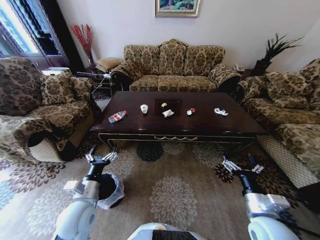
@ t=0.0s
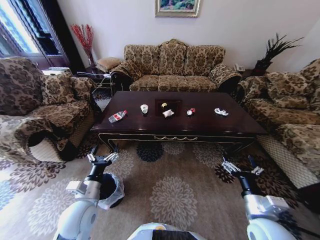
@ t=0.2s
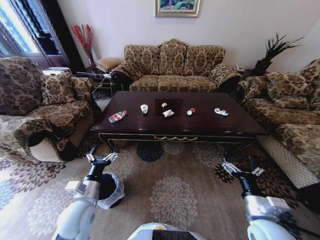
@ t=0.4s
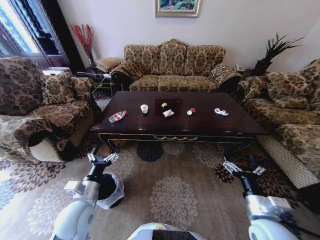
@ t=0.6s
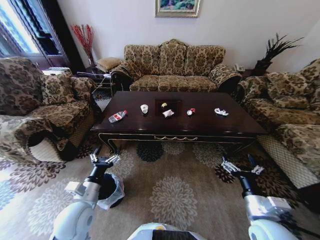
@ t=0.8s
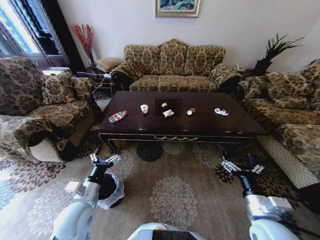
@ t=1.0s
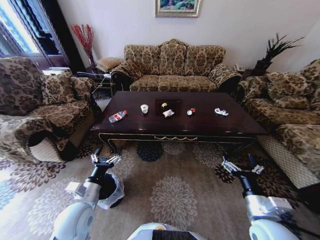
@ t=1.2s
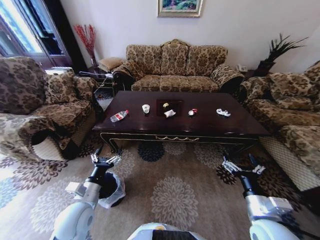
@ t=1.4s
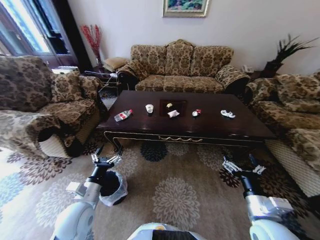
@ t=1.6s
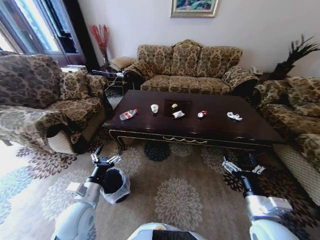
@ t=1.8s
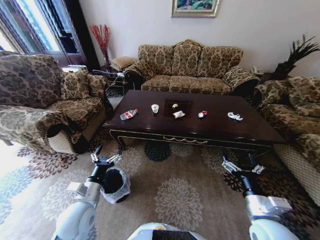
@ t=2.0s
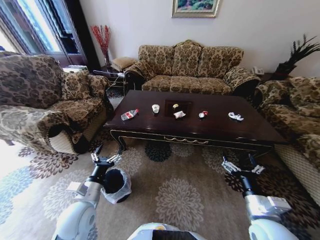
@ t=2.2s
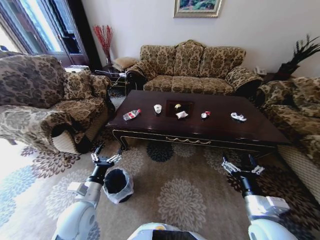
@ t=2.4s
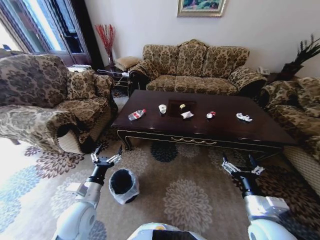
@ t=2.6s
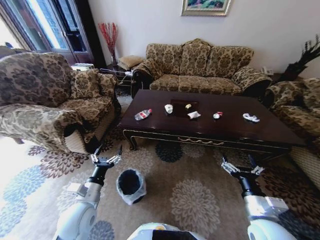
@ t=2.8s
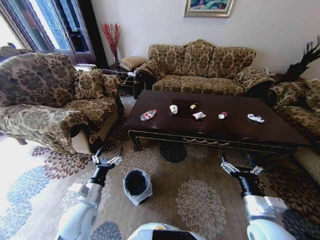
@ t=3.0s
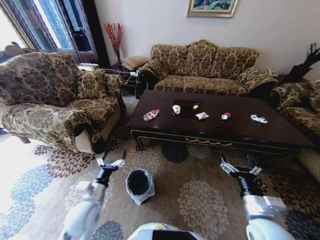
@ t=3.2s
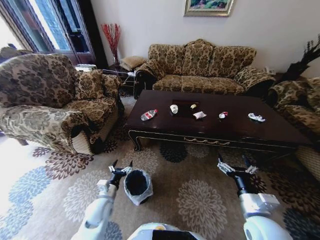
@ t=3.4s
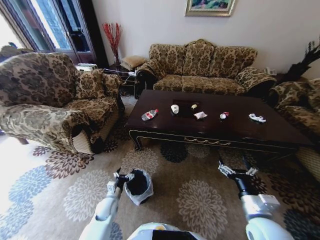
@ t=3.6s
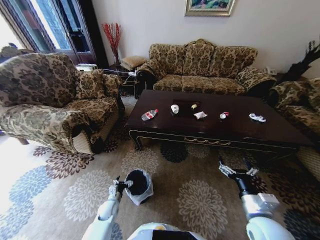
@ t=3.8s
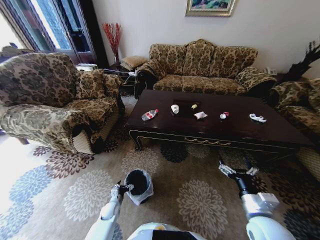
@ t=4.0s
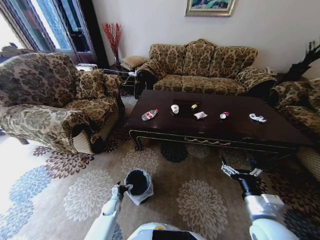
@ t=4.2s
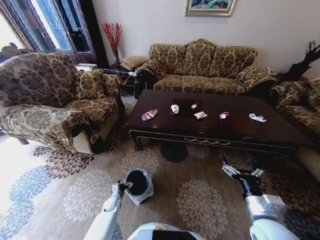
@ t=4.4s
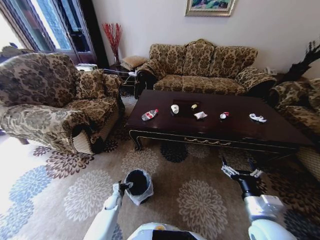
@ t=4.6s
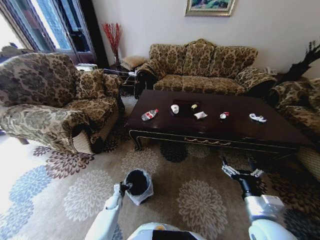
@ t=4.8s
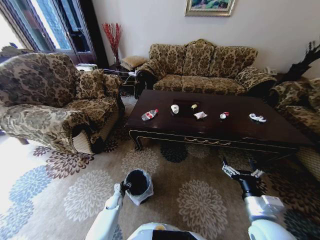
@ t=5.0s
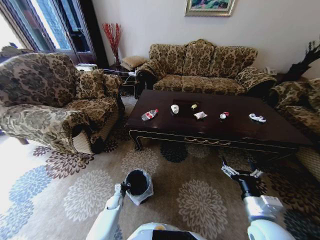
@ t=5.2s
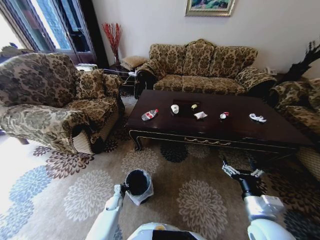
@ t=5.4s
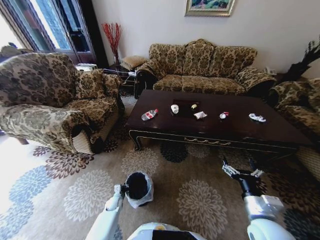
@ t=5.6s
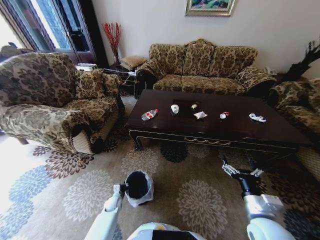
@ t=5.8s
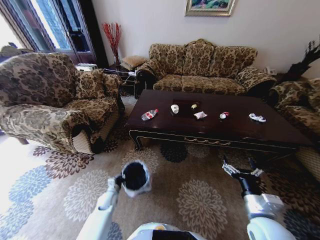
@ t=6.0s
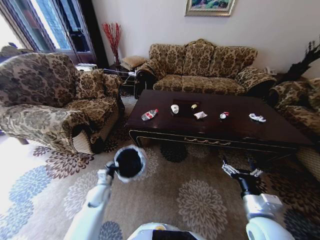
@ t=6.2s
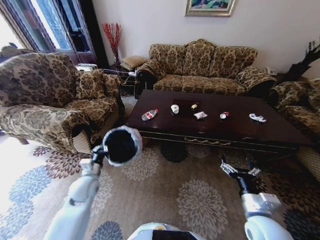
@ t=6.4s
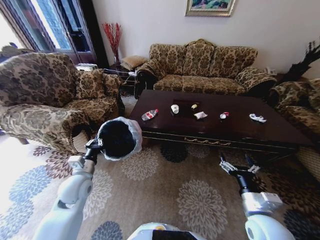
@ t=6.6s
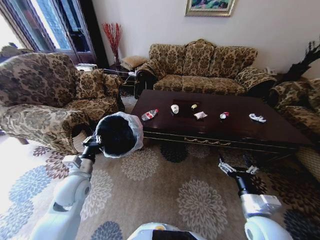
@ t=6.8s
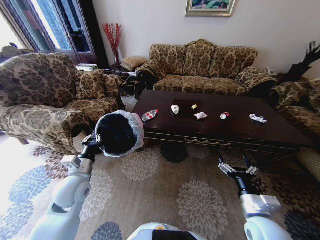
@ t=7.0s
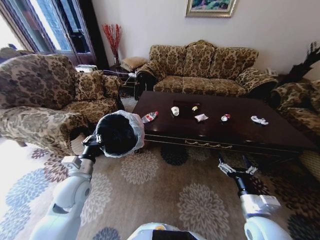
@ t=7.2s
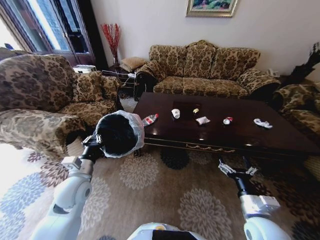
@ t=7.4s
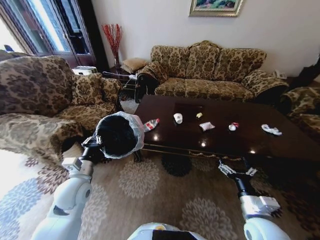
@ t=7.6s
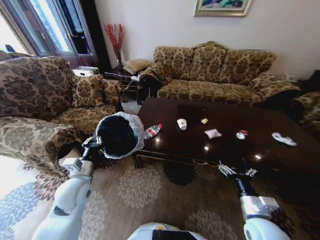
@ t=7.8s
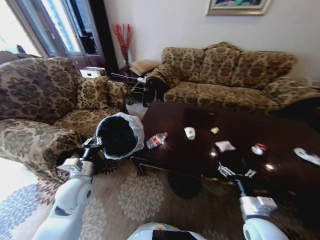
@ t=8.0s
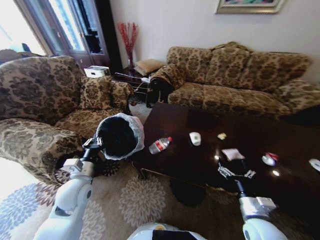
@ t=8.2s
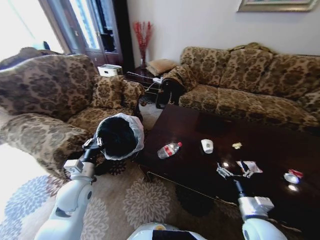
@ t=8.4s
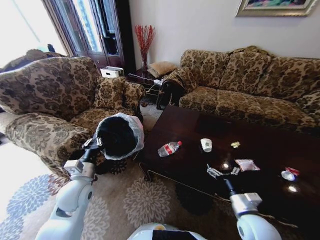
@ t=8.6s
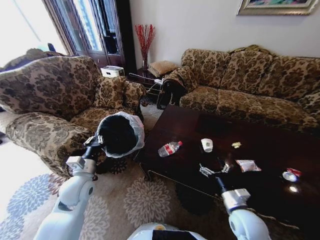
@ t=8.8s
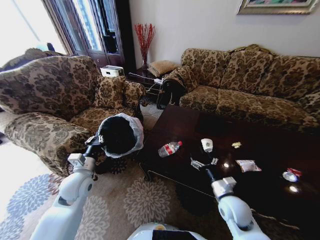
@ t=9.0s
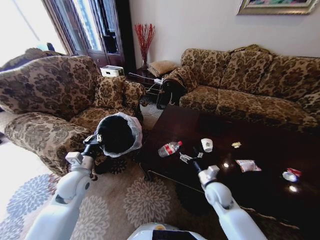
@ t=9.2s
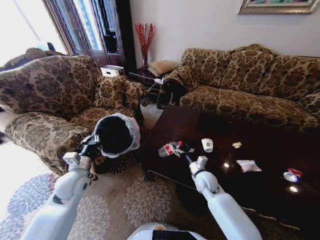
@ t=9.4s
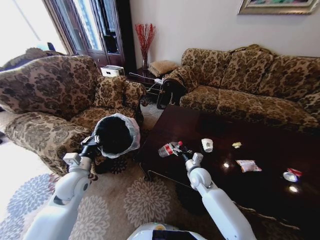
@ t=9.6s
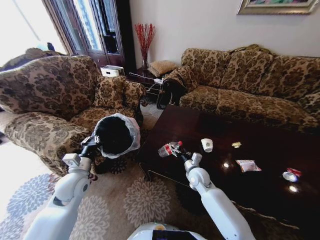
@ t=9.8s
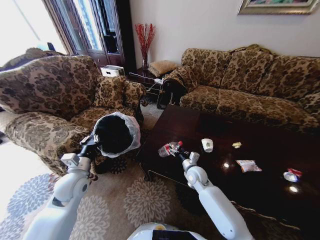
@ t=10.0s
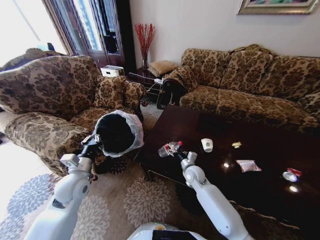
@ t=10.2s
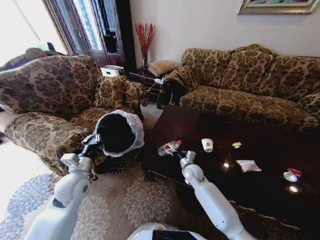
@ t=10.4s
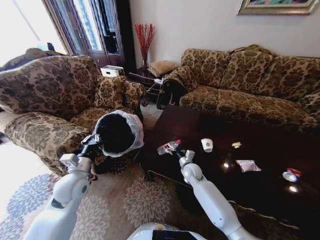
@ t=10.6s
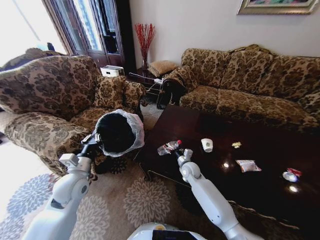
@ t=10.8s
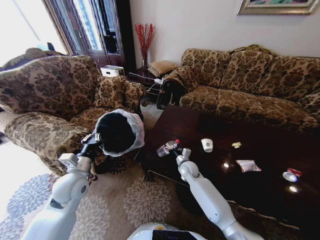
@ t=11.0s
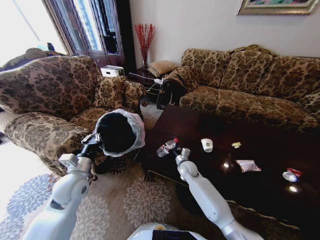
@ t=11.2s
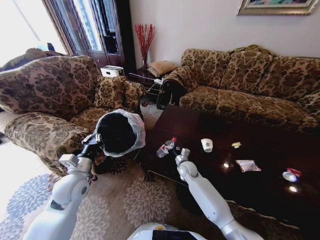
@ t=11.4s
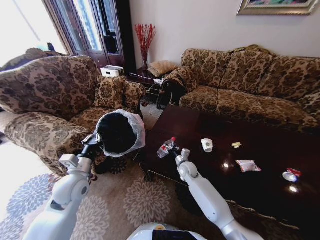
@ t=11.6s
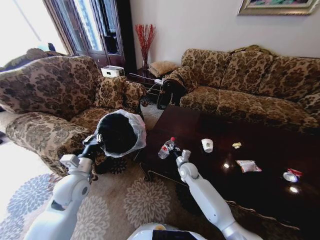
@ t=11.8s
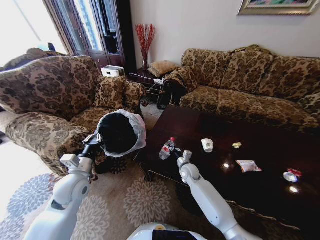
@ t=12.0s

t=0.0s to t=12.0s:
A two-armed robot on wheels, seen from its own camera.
Task of the whole recording: Move to the front of the table and place the trash on the table into the trash bin.
t=3.0s to t=4.4s: The left gripper travels downward by approximately 30 cm.
t=4.4s to t=6.0s: The left gripper shifts approximately 5 cm upward, and closes its fingers.
t=6.0s to t=7.6s: The left gripper is displaced upward by about 30 cm.
t=7.6s to t=9.0s: The right gripper travels forward by approximately 5 cm.
t=9.0s to t=10.4s: The right gripper moves forward and to the left, roughly 20 cm.
t=10.4s to t=12.0s: The right gripper closes up.

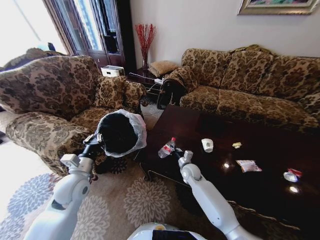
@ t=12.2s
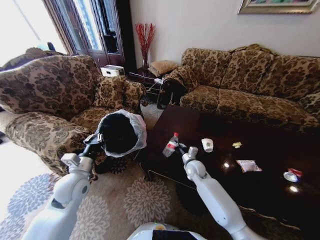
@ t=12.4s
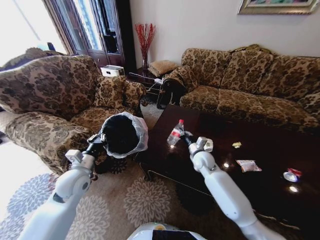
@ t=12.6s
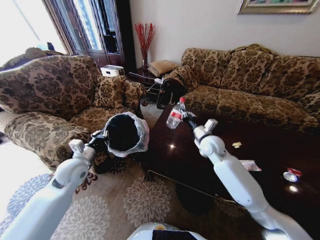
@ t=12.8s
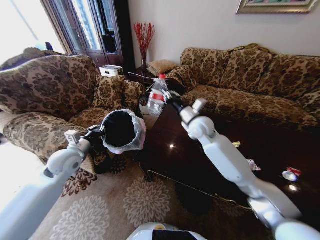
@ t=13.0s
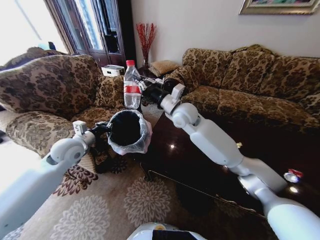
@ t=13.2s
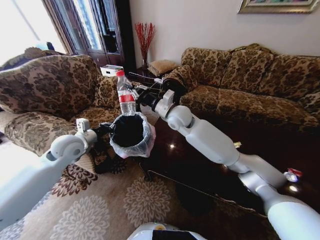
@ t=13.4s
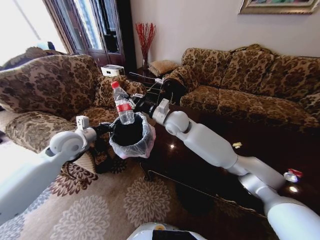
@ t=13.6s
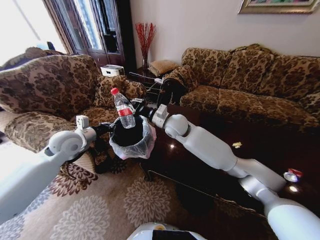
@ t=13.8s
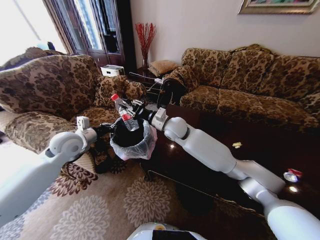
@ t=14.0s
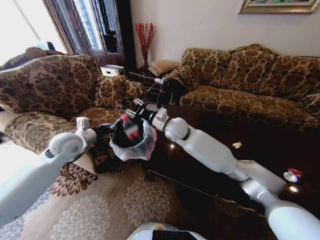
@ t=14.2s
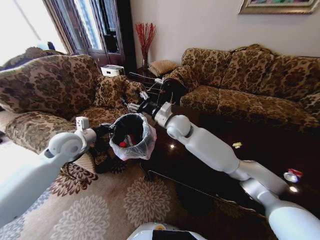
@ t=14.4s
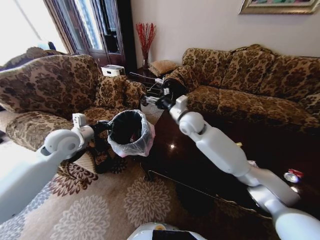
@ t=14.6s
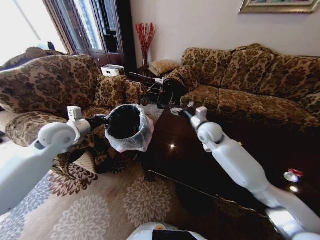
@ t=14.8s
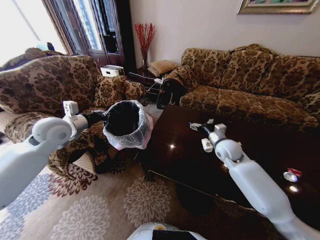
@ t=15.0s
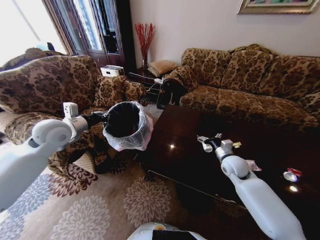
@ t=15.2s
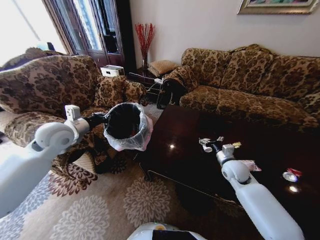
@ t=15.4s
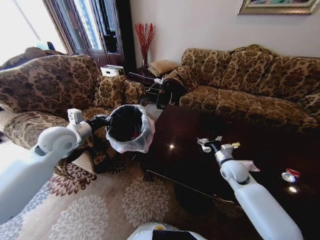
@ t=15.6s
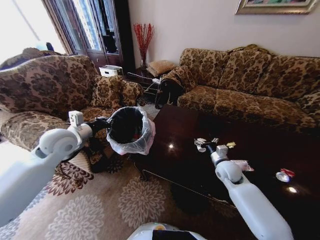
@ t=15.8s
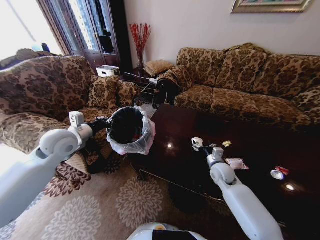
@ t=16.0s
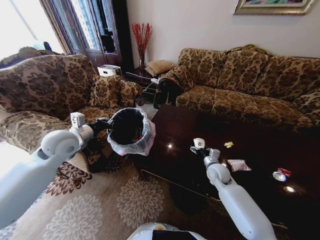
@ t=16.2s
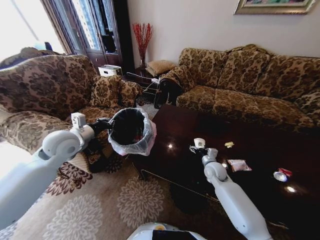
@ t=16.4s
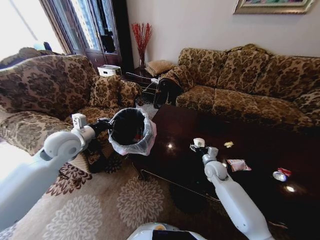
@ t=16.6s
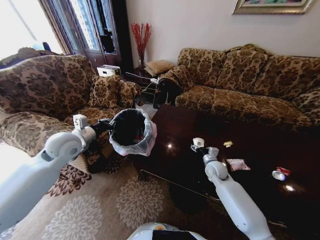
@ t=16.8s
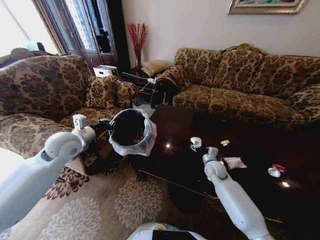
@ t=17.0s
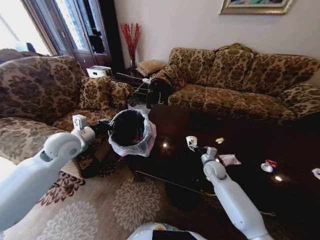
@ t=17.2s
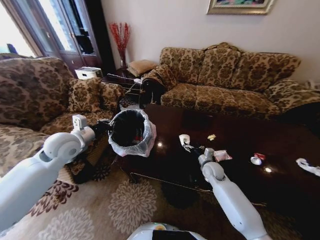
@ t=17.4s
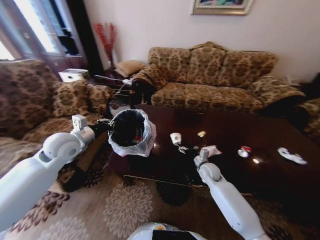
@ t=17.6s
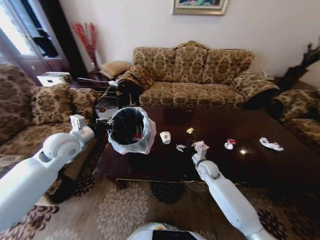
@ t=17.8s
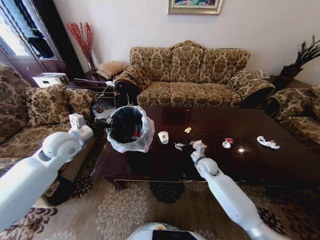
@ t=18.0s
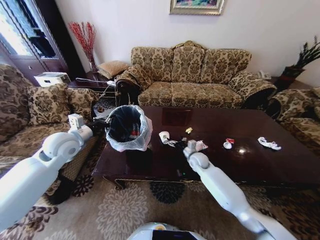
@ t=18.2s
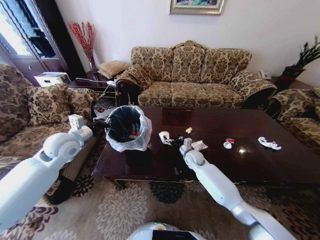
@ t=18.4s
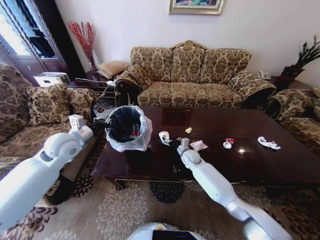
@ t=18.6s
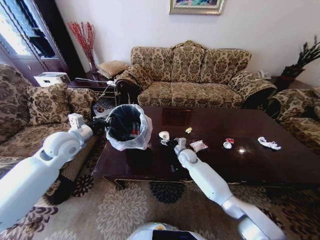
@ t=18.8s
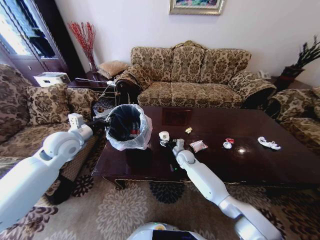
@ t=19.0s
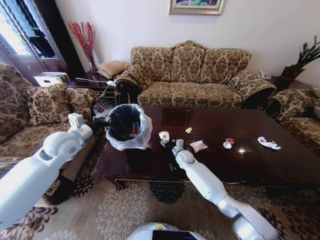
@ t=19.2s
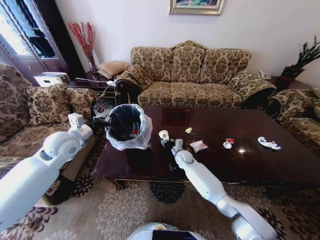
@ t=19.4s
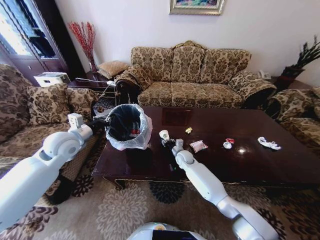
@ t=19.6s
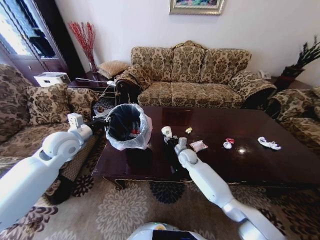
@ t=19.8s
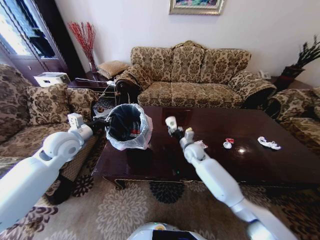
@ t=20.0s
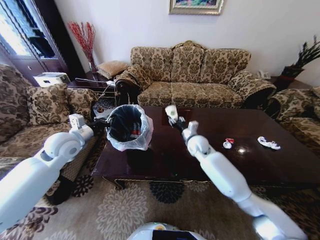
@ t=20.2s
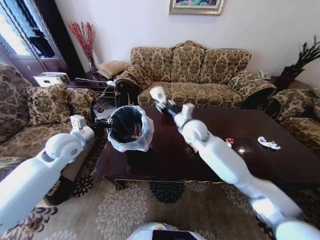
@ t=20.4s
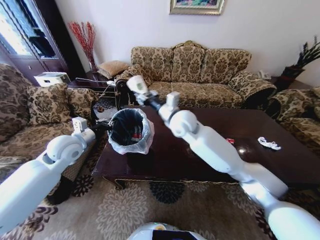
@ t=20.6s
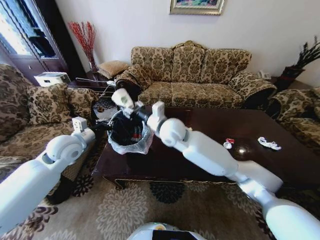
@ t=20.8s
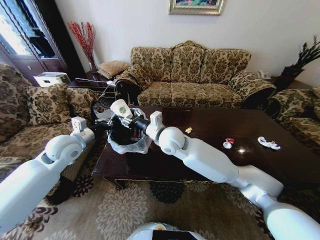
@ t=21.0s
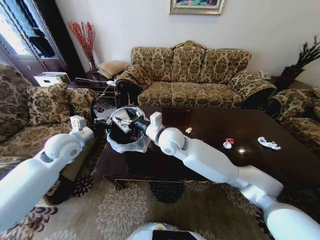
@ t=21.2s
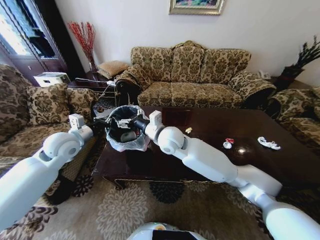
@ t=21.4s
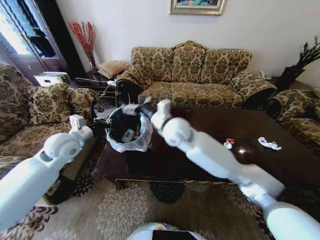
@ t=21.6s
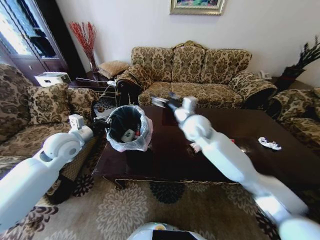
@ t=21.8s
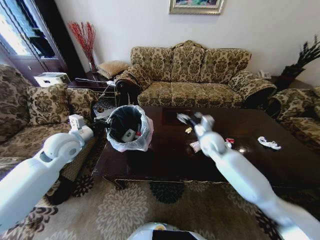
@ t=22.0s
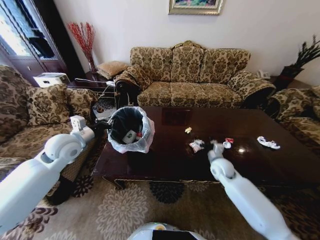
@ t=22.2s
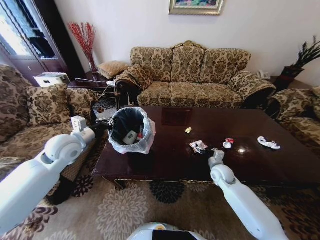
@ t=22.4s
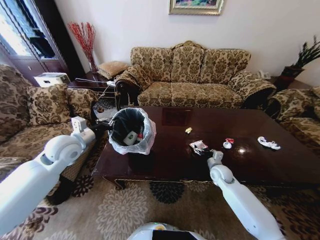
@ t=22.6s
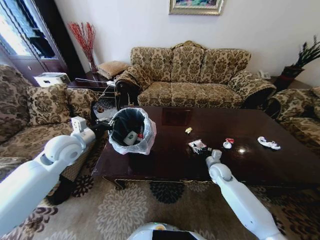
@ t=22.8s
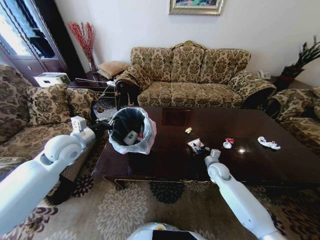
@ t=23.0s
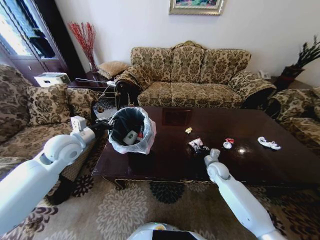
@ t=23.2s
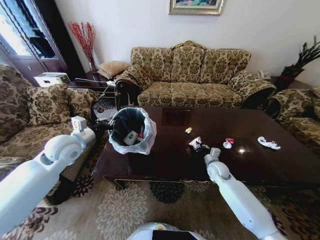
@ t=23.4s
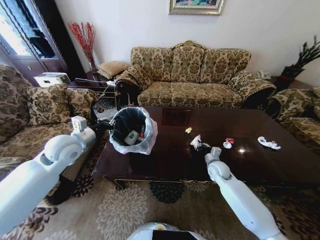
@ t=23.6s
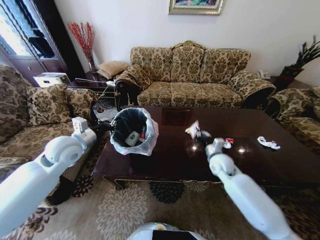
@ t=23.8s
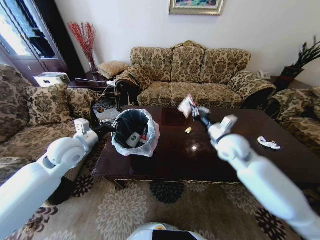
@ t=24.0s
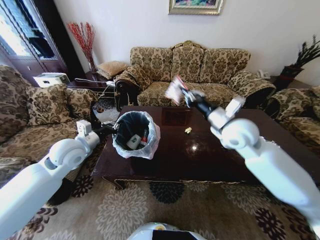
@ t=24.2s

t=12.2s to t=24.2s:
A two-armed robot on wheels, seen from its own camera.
Task of the whole recording: Move to the front of the table and place the trash on the table into the trash bin.
t=12.2s to t=13.8s: The left gripper goes roughly 15 cm forward and upward, while the right gripper heads upward, covering about 30 cm.
t=13.8s to t=15.2s: The right gripper goes roughly 30 cm to the right and downward, and opens, while the left gripper travels upward by some 5 cm.
t=15.2s to t=16.6s: The right gripper moves downward, about 10 cm. The left gripper moves roughly 5 cm.
t=16.6s to t=18.2s: The right gripper travels to the left and forward by roughly 10 cm.
t=18.2s to t=19.8s: The right gripper shifts about 5 cm to the left, and closes its fingers.
t=19.8s to t=21.2s: The right gripper heads upward and to the left, covering approximately 25 cm.
t=21.2s to t=22.6s: The right gripper is displaced to the right and downward by about 40 cm.
t=22.6s to t=24.2s: The right gripper goes about 30 cm upward, and closes up.
